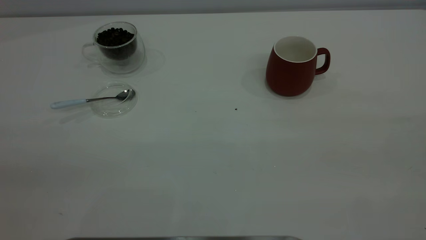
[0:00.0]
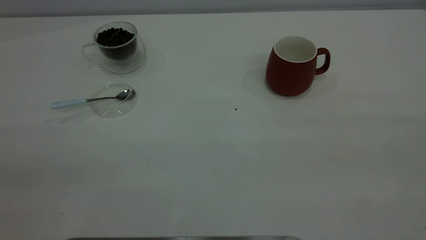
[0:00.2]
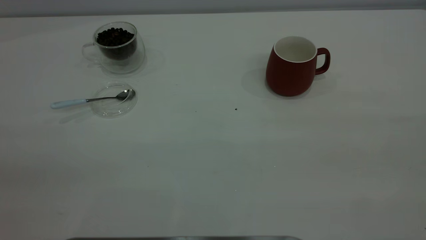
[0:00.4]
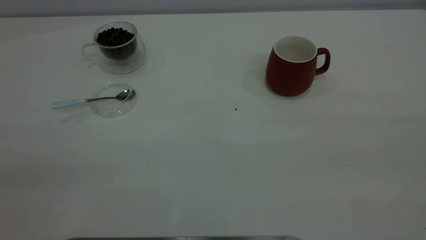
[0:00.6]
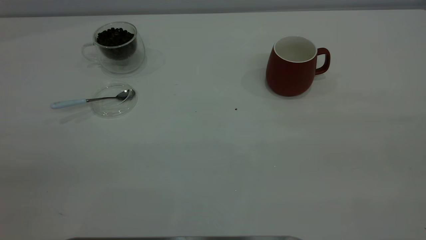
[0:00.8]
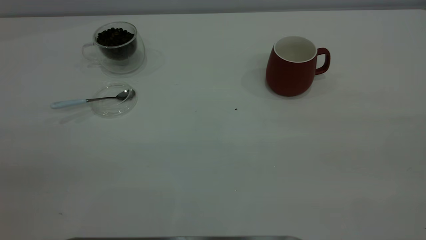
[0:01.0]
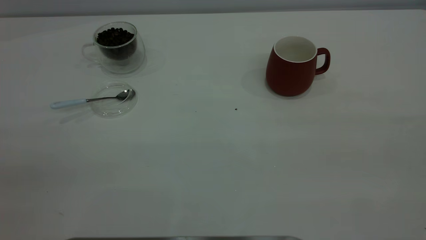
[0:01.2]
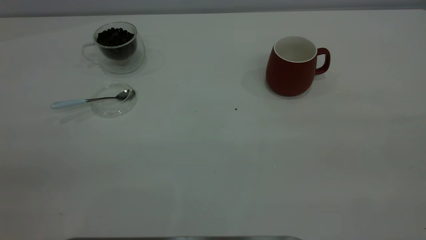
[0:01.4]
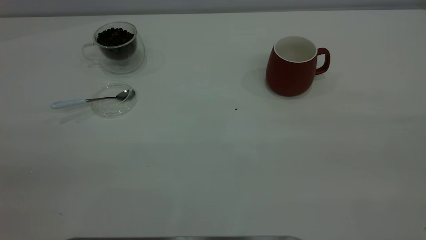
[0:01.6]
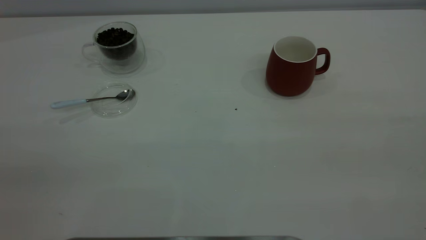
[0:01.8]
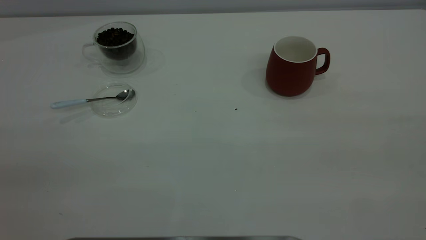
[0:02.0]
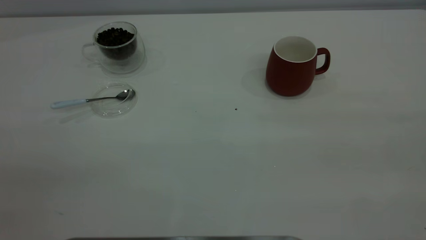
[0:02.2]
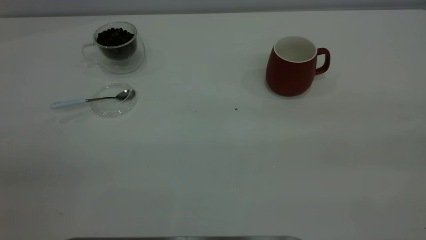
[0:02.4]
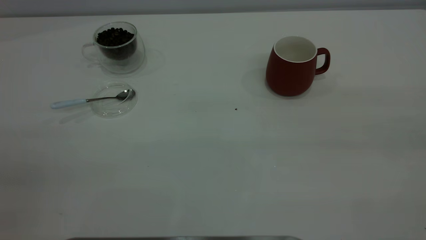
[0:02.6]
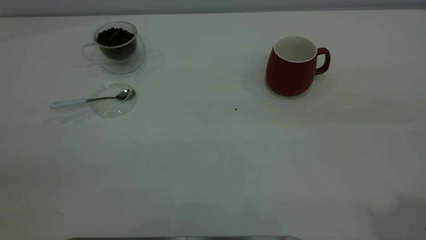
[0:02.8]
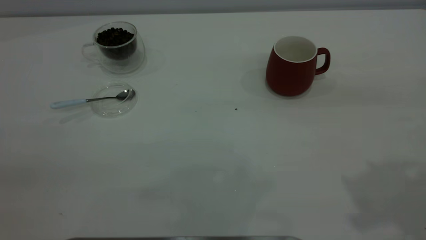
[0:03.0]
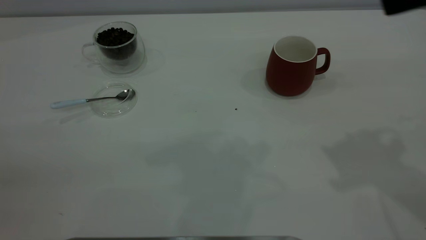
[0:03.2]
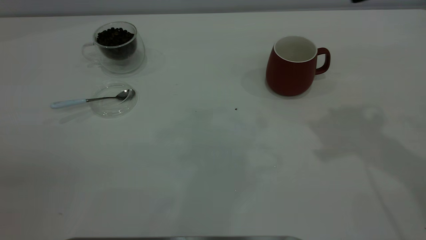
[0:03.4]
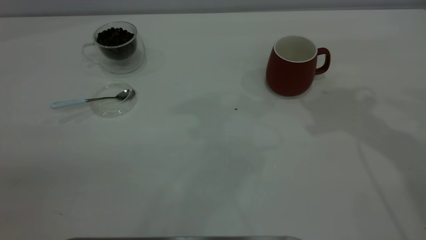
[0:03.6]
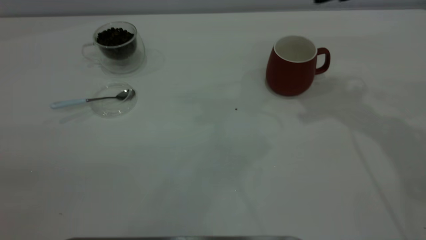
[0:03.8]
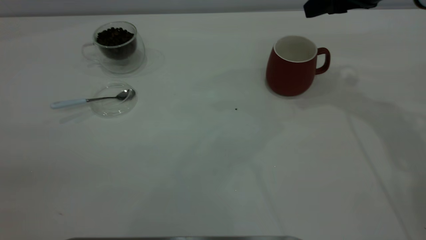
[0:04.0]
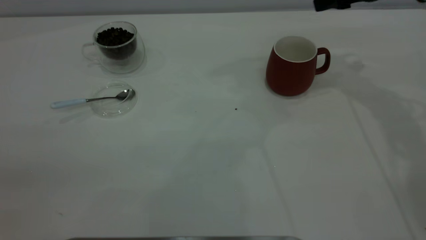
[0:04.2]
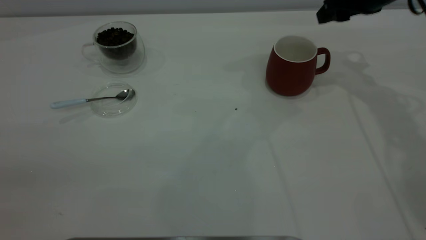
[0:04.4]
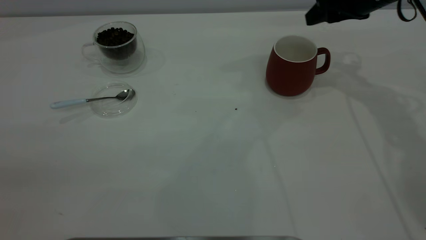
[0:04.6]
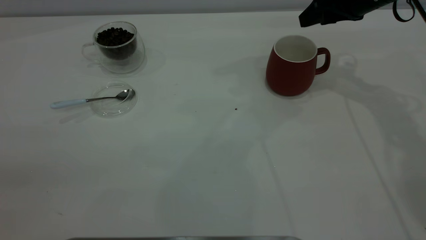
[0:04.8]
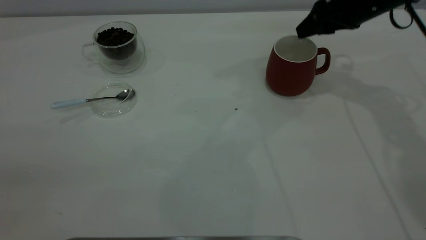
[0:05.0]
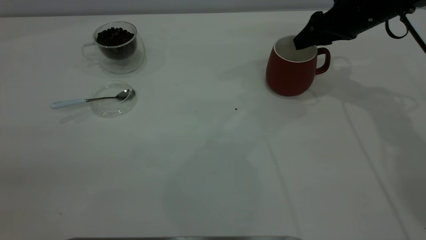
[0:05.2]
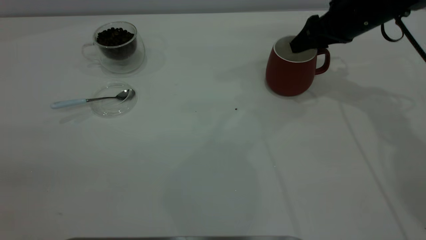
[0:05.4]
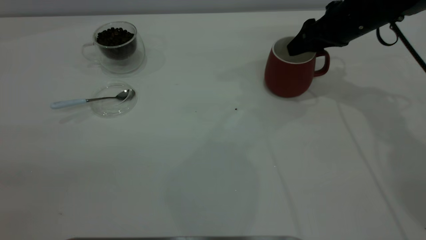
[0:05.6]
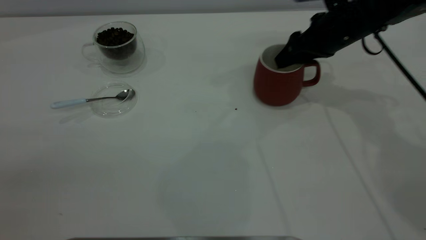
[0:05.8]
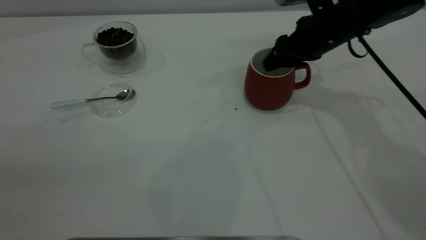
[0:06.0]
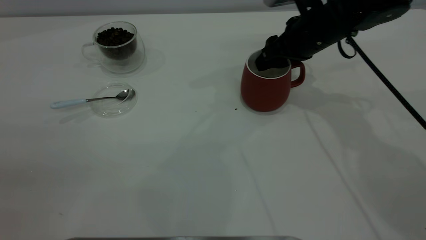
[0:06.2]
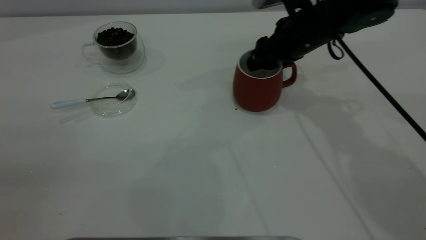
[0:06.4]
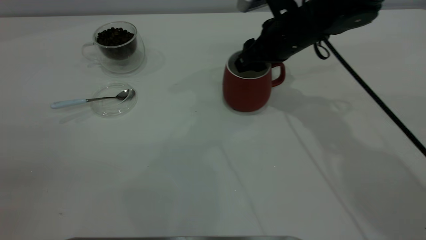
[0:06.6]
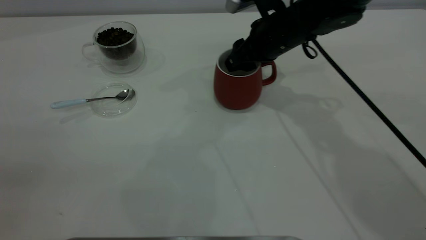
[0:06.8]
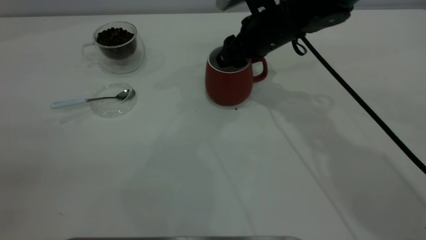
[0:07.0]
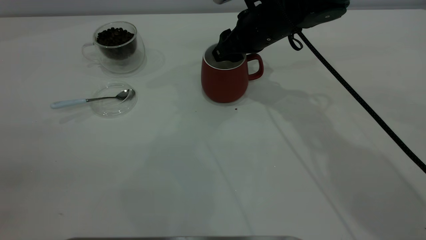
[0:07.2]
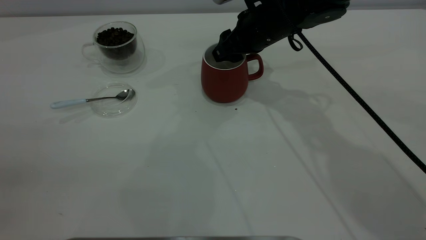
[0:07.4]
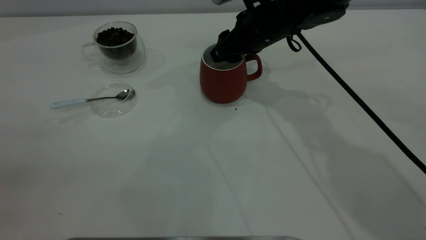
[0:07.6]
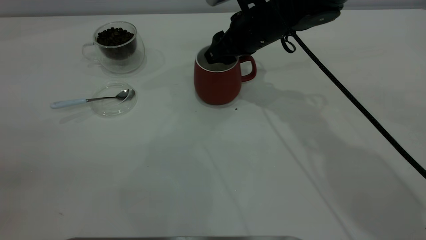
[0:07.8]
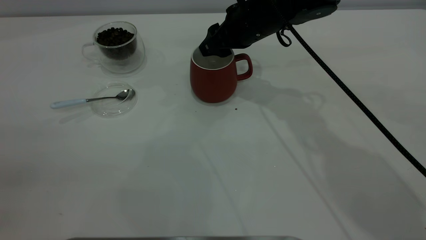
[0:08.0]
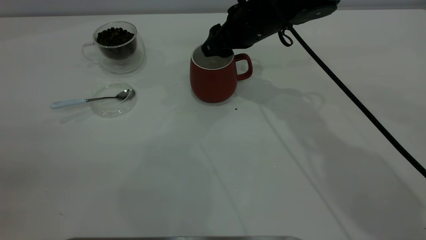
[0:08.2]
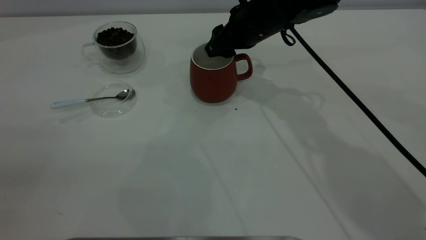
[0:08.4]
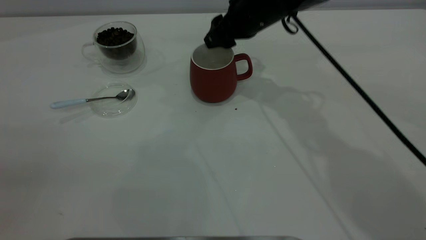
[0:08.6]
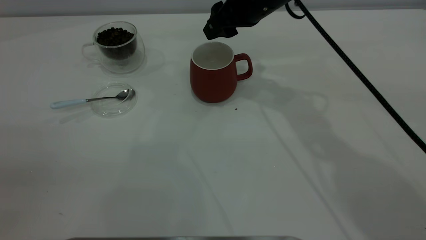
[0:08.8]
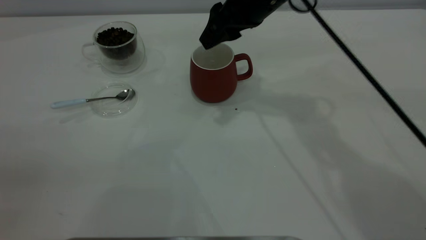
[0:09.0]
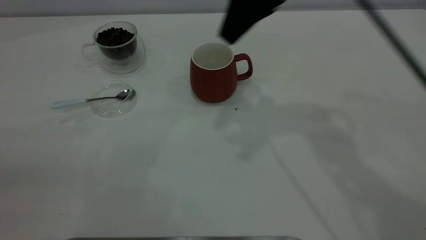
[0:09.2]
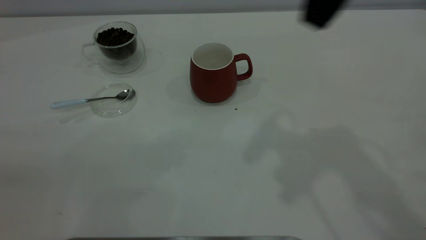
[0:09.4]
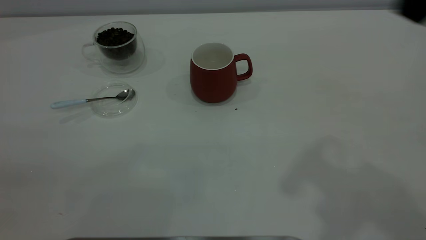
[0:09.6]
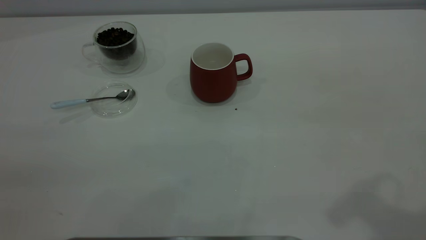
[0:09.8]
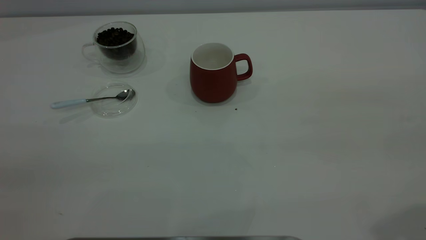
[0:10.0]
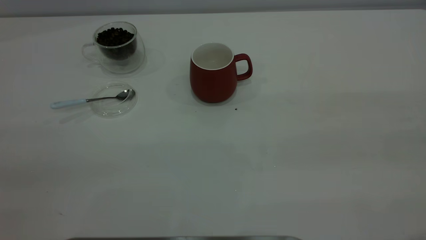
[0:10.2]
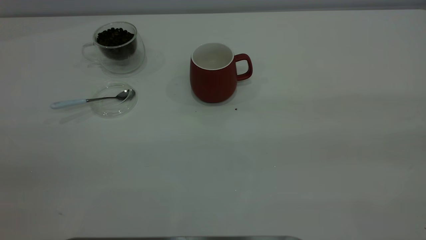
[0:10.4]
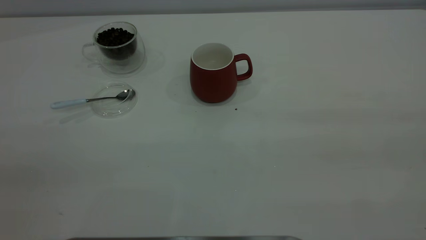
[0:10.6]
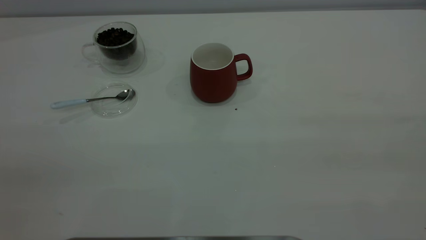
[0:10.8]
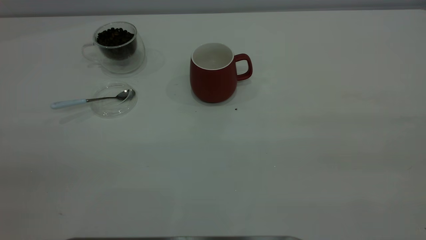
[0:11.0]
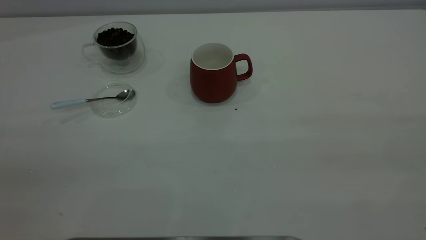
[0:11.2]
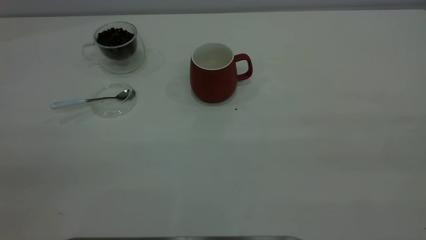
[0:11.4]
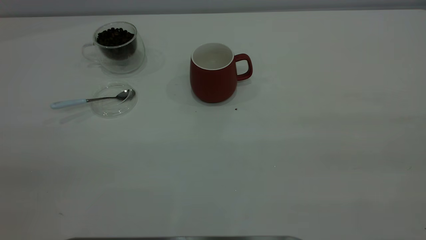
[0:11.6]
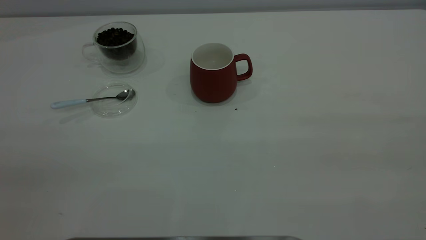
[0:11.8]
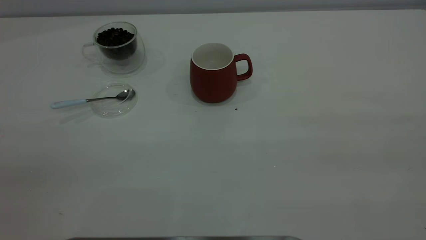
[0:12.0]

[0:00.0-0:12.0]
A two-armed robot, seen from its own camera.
Task of the whole recording: the right gripper place the red cup in the center of the table, the left gripper take the blue spoon from the cup lid and scoop out the coffee beans from the coffee cup and put them into the red cup, the left gripper put the spoon back into the cup lid.
Step, 0:00.0 to 0:08.6: Move the cup to the center of view.
0:00.0 to 0:01.6: Neither gripper changes place.
0:03.0 to 0:04.4: The right gripper travels forward and downward by some 30 cm.
0:04.4 to 0:06.0: The right gripper shifts some 10 cm to the left and downward.
0:06.0 to 0:07.6: The right gripper is displaced to the left by some 10 cm.
0:07.6 to 0:09.0: The right gripper shifts about 10 cm upward.
0:09.0 to 0:10.4: The right gripper moves backward, to the right and upward, approximately 40 cm.

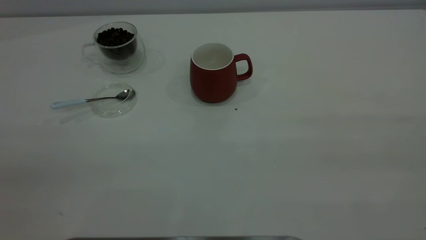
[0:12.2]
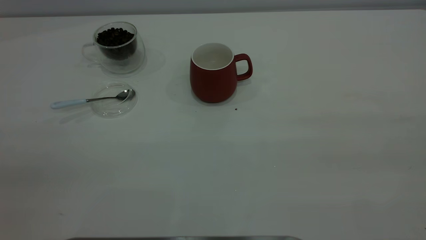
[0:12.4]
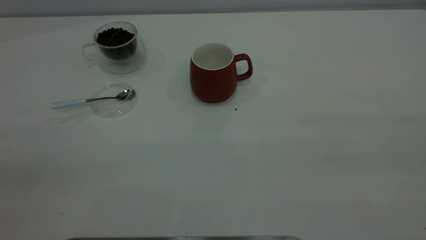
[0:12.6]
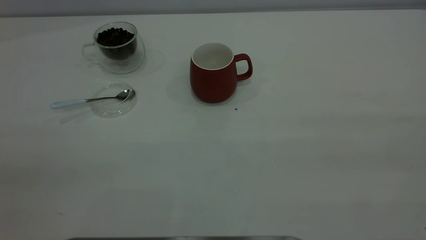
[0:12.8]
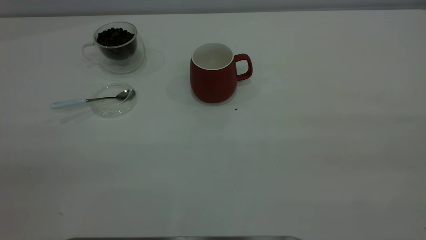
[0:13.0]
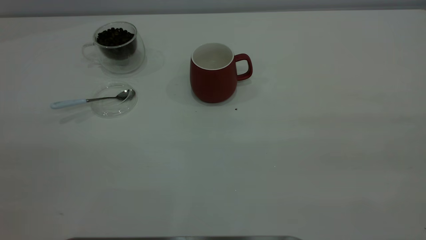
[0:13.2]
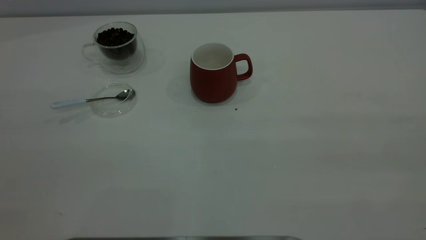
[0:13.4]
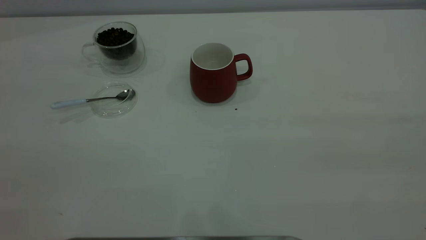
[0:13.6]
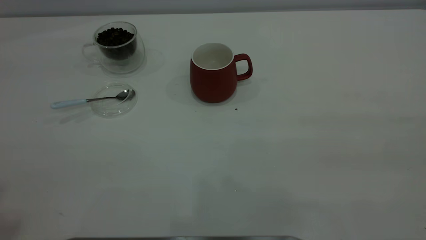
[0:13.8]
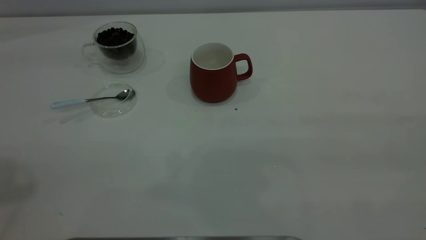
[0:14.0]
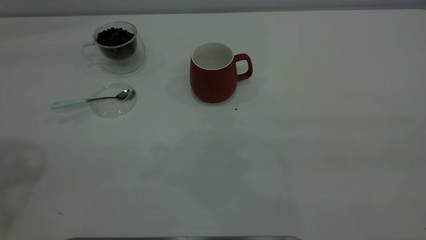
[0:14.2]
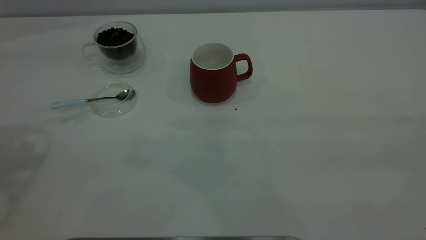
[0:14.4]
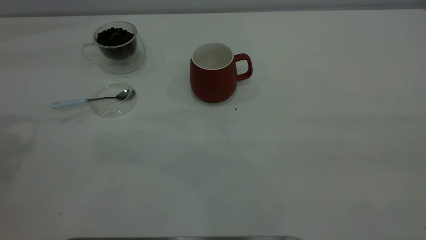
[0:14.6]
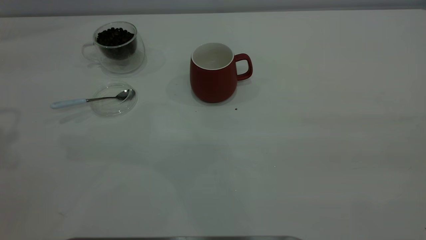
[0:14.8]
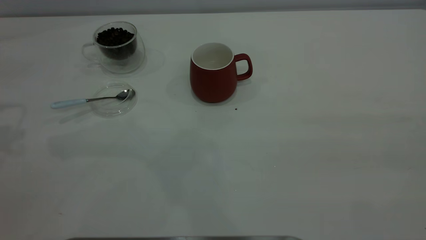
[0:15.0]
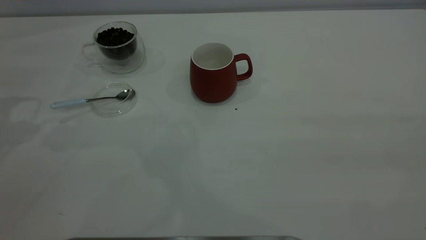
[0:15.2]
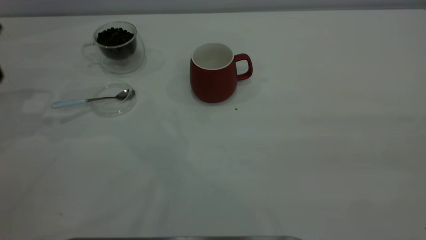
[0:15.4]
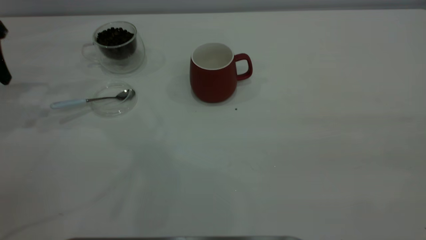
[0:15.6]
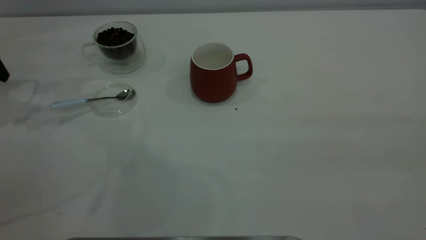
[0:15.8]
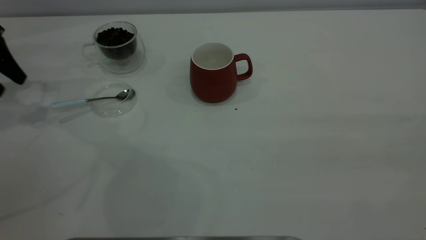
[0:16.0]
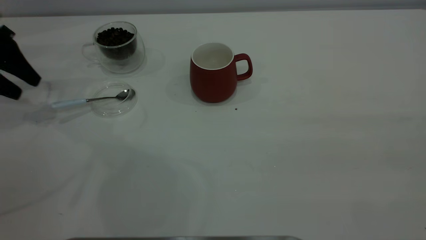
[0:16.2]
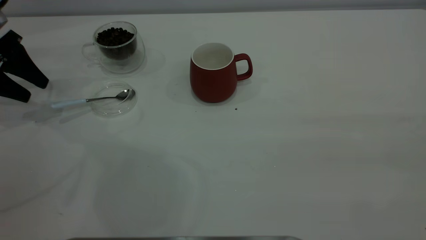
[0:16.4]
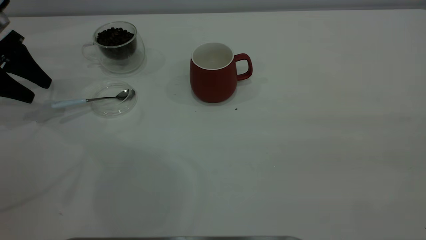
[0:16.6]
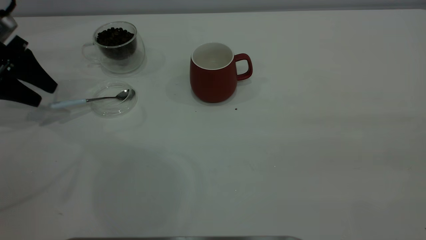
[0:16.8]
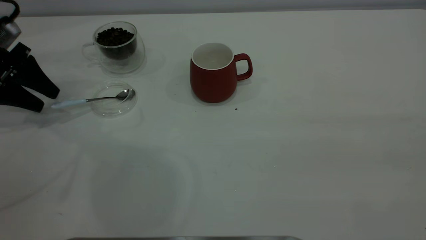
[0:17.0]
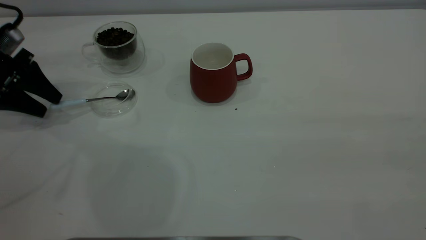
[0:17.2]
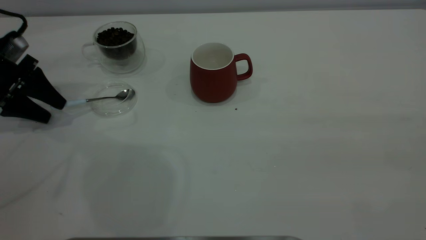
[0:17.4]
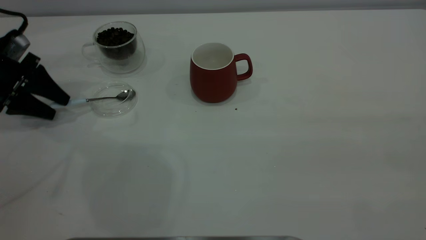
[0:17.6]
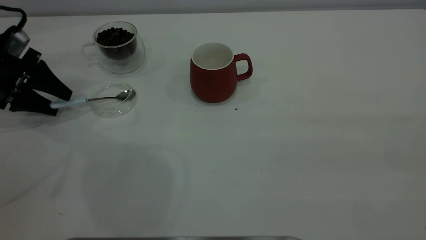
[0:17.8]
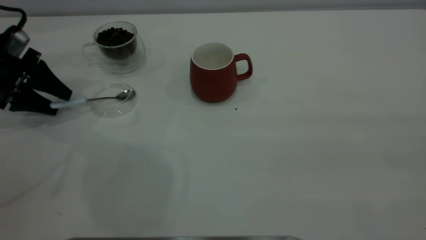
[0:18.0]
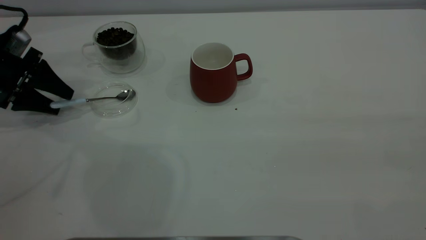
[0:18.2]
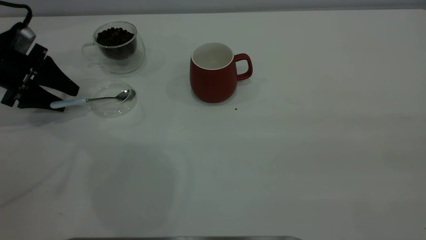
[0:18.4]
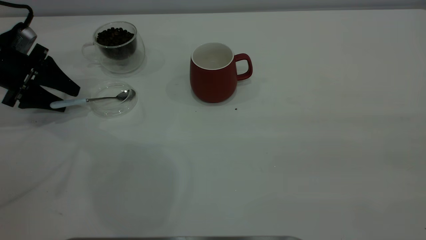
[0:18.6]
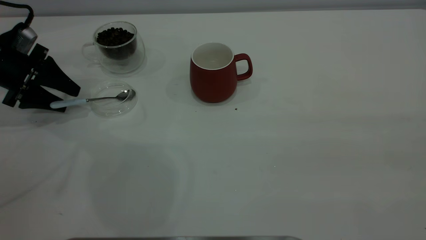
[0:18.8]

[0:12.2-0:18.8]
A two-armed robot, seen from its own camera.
Task of the whole recording: the right gripper place the red cup in the center of the table, the left gripper take the blue spoon from the cup lid and scoop out the coffee beans from the coffee cup and put them into the red cup, the left gripper put the spoon back into the cup lid.
0:15.4 to 0:17.2: The left gripper is displaced downward by about 10 cm.
0:17.2 to 0:18.8: There are only small adjustments of the grippers.
